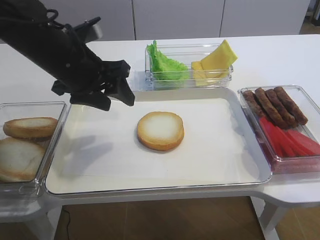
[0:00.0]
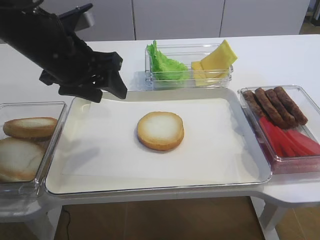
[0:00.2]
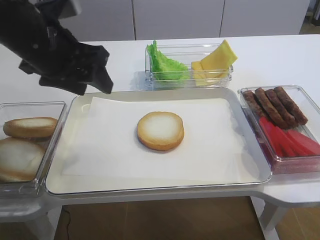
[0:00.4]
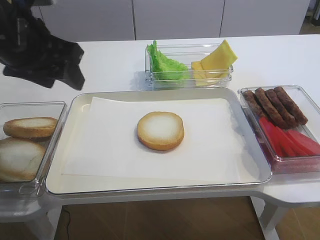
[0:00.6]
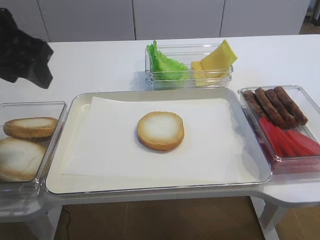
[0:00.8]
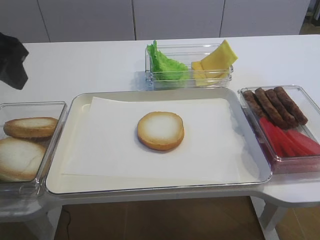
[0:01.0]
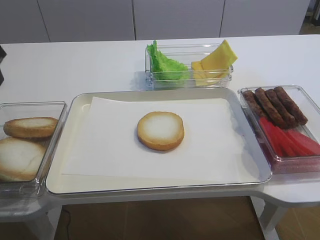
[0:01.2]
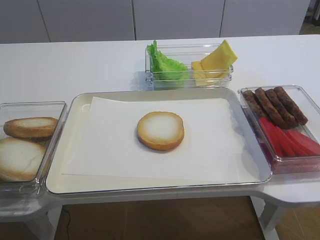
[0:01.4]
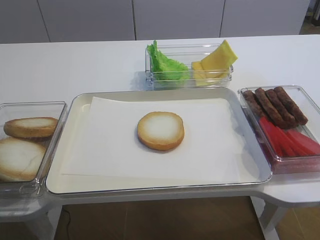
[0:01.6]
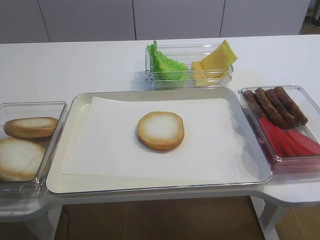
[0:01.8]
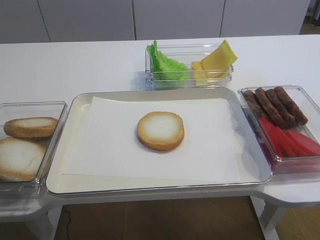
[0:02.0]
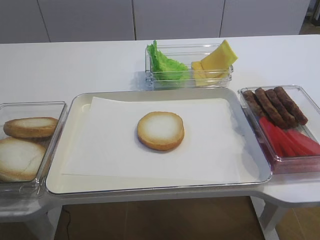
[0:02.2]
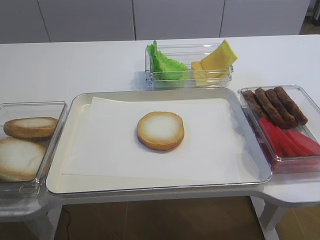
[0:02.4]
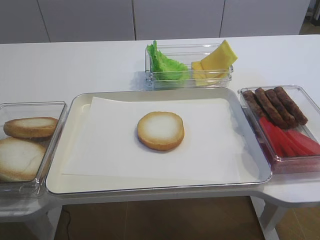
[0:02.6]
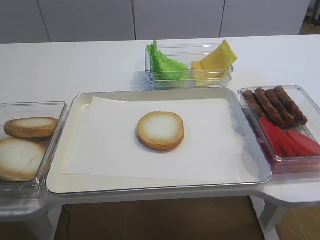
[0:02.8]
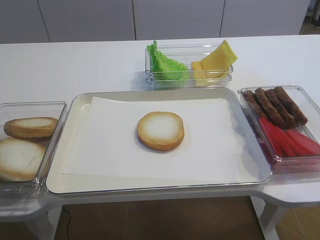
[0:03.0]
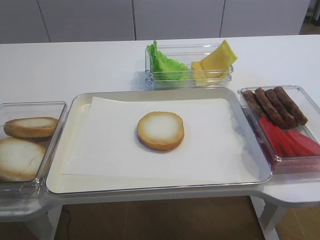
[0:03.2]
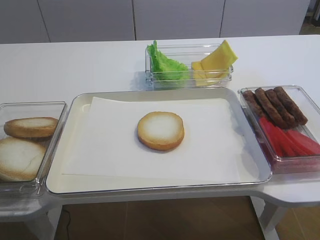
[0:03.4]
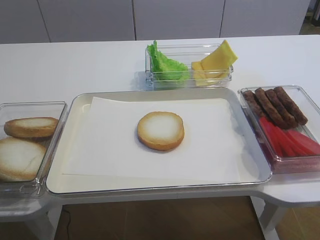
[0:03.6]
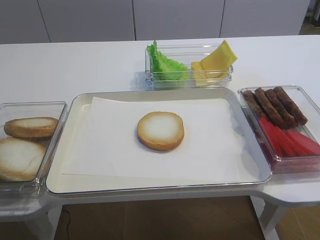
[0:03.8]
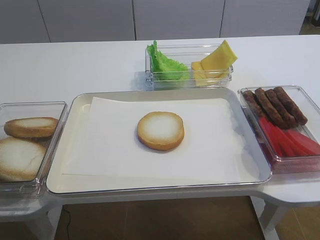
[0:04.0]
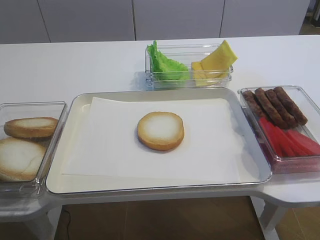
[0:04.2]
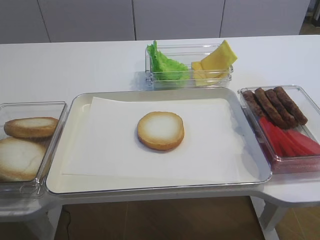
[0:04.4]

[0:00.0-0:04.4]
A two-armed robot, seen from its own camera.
0:00.0 to 0:01.4: The left gripper shifts some 20 cm to the left, upward and backward.

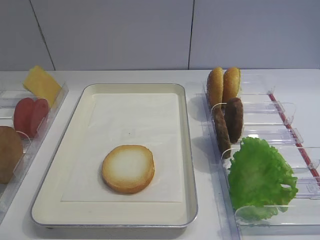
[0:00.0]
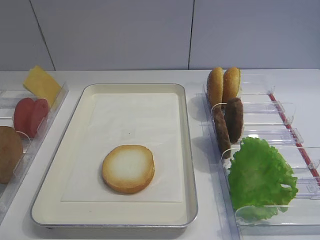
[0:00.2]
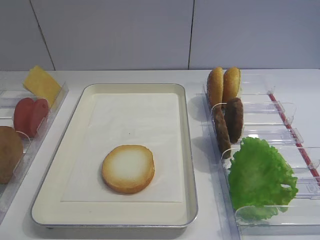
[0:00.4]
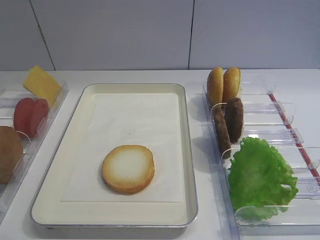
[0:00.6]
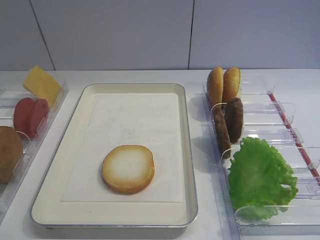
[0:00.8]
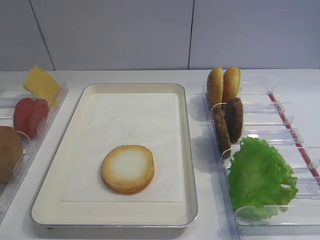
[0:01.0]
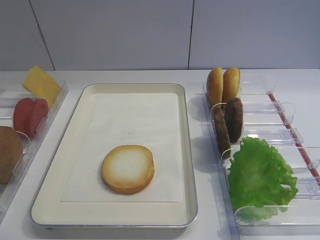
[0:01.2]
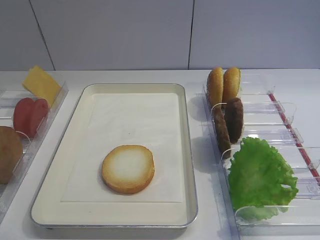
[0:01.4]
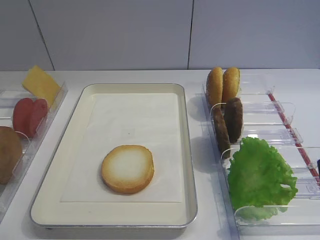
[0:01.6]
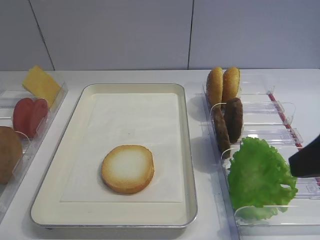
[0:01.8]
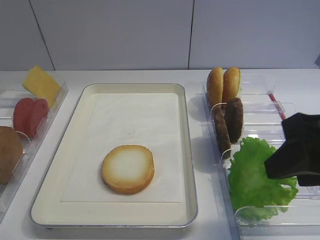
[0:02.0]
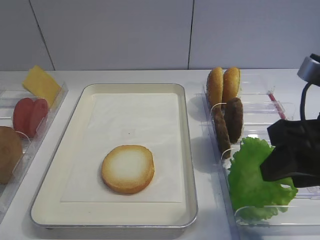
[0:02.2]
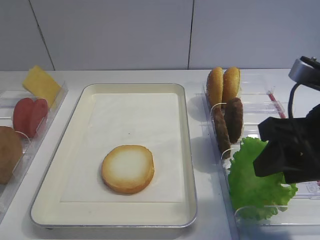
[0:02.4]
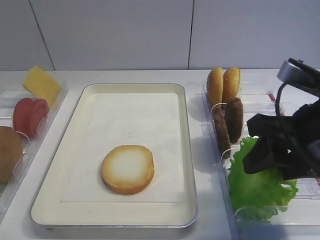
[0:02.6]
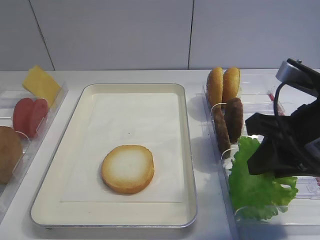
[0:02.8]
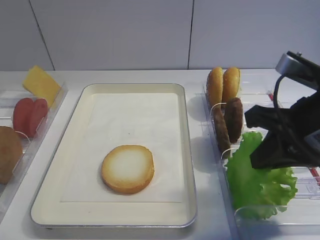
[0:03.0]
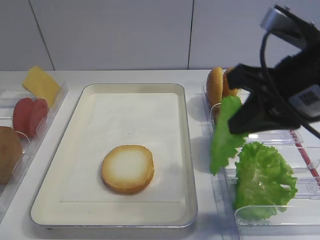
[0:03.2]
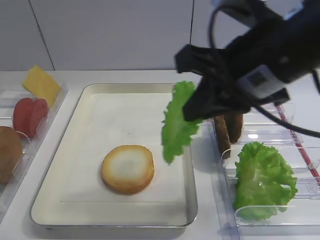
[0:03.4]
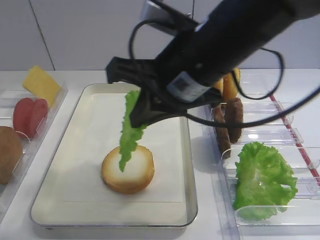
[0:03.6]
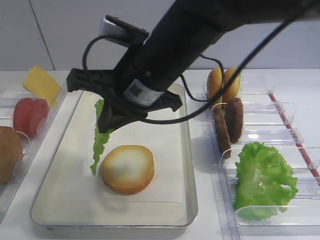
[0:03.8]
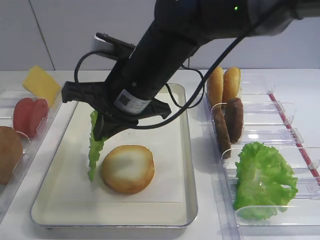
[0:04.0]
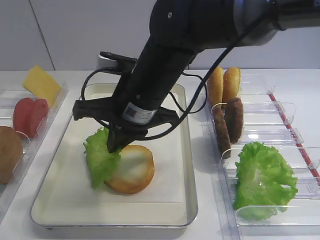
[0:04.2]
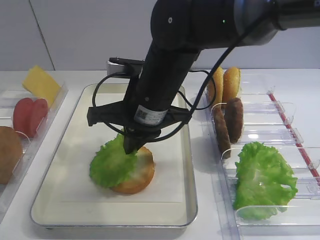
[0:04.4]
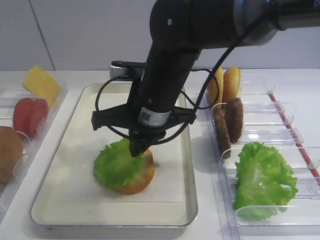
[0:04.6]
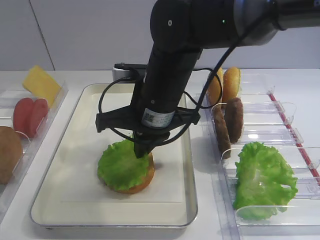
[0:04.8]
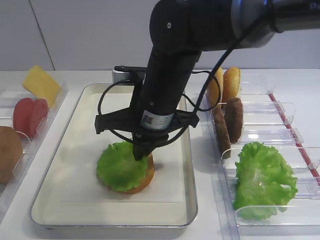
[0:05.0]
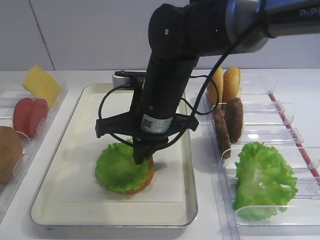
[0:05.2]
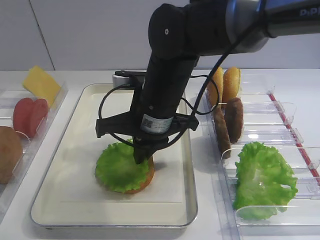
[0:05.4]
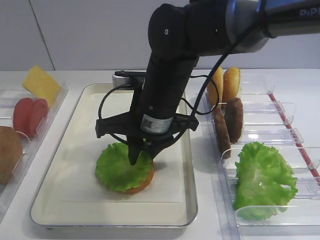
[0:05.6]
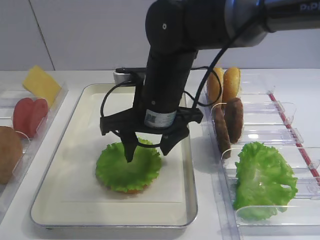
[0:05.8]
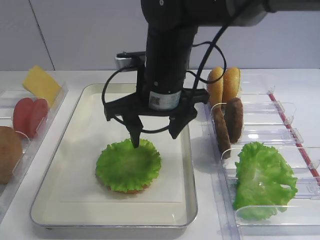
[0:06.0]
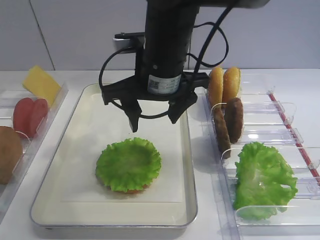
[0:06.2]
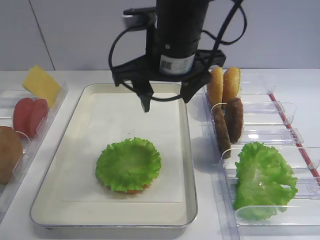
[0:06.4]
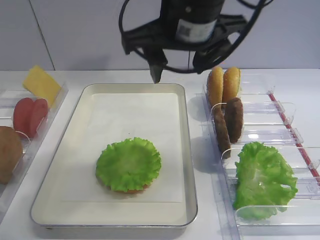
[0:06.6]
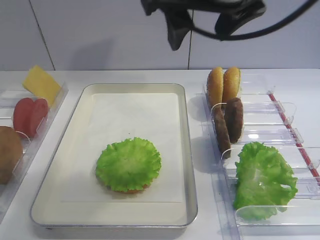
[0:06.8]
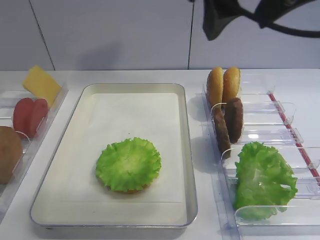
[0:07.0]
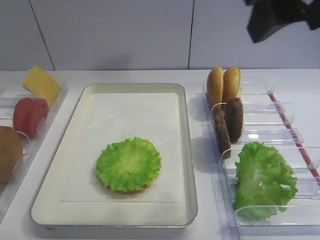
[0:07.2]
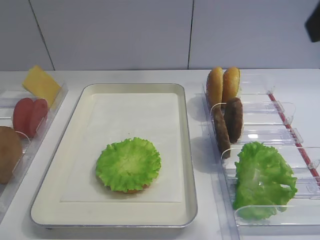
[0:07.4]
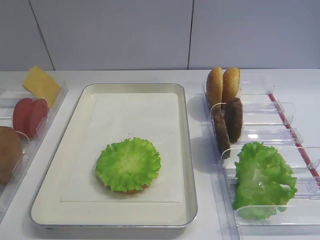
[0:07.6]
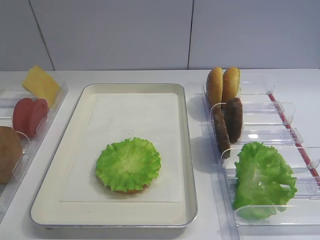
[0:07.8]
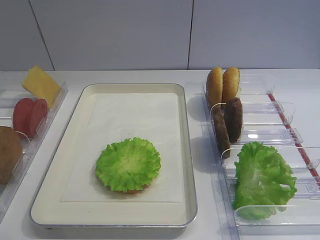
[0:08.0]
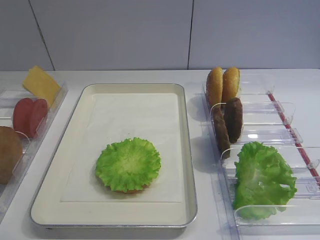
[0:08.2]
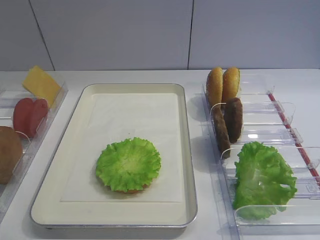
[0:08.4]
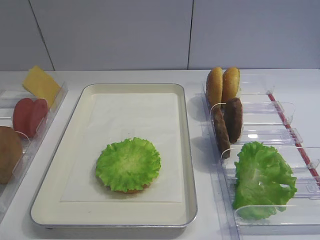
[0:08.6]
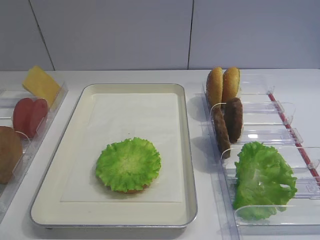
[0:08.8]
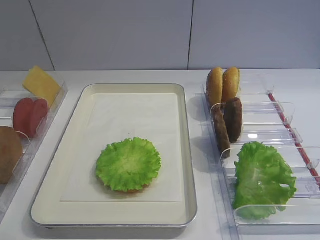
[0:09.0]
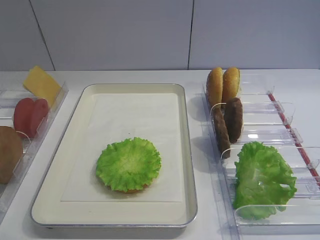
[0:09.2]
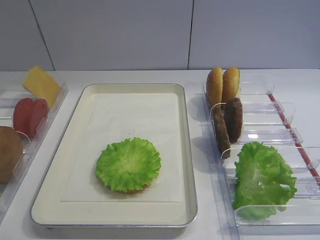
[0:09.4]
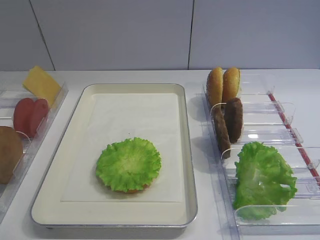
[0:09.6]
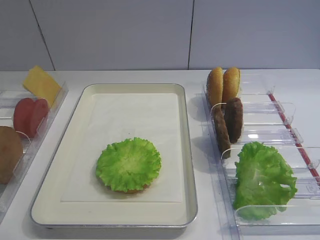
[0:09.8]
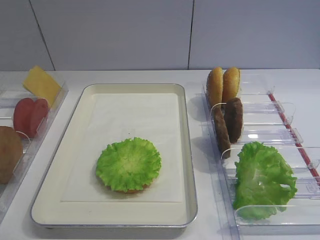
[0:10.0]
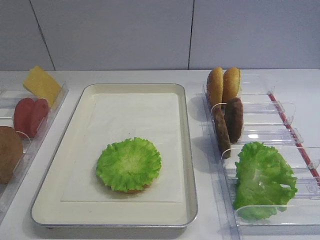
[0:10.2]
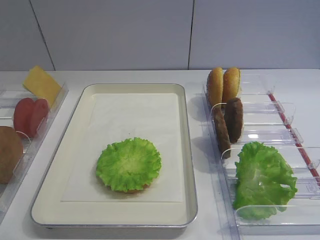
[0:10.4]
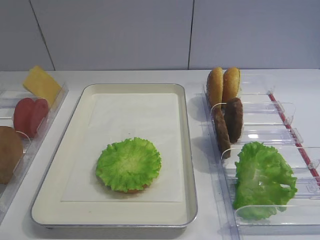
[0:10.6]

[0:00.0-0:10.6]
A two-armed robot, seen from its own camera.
Step, 0:00.0 to 0:03.0: Pick up the lettuce leaf with the right gripper.
Step, 0:03.2 to 0:06.0: Place the lettuce leaf on the bread slice with the right gripper.
0:01.6 to 0:03.0: The right gripper goes approximately 10 cm forward, and closes.
0:03.0 to 0:04.6: The right gripper goes approximately 20 cm to the left and forward.
0:04.6 to 0:06.0: The right gripper opens its fingers.
0:06.0 to 0:07.6: The right gripper travels to the right, backward and upward by roughly 35 cm.

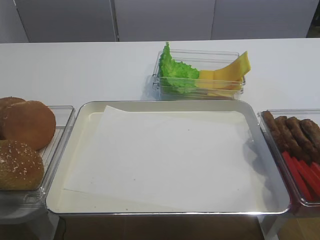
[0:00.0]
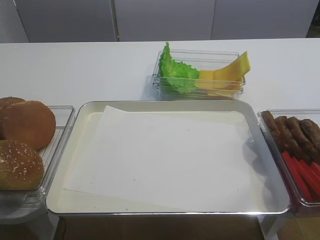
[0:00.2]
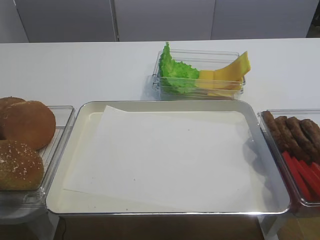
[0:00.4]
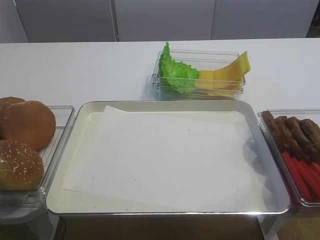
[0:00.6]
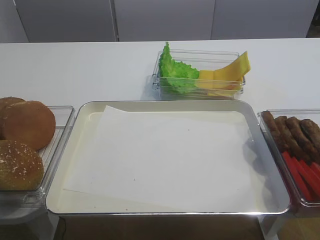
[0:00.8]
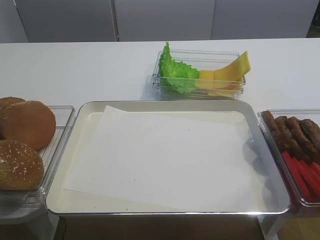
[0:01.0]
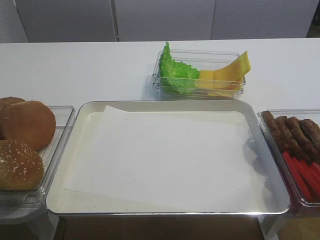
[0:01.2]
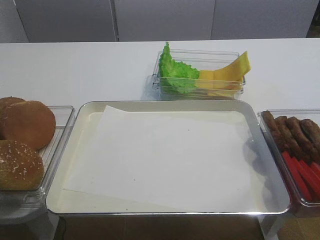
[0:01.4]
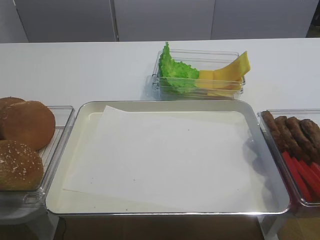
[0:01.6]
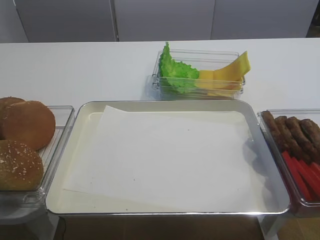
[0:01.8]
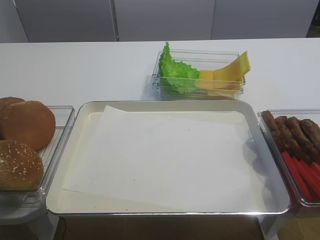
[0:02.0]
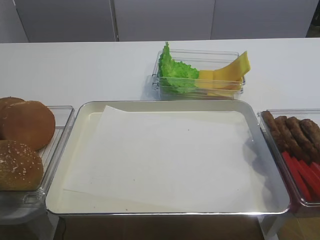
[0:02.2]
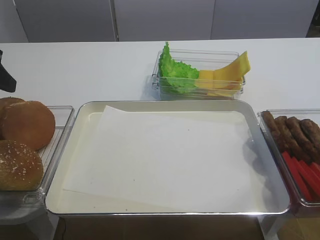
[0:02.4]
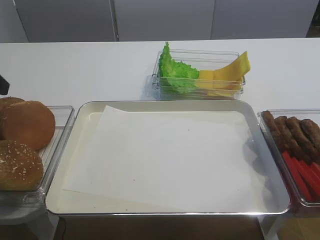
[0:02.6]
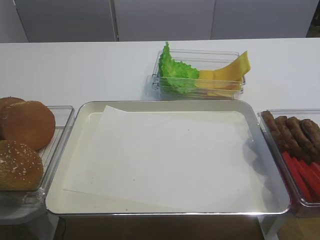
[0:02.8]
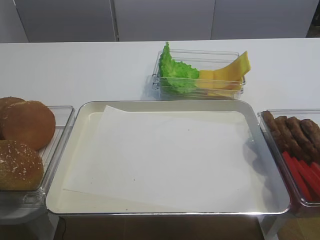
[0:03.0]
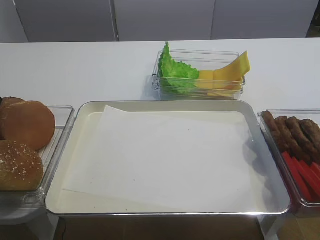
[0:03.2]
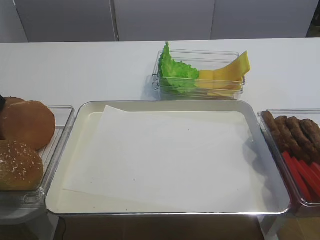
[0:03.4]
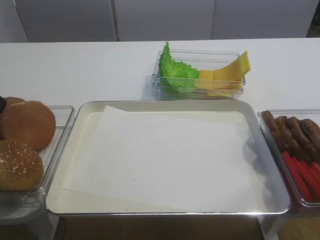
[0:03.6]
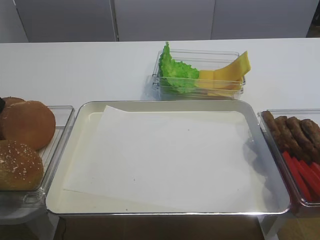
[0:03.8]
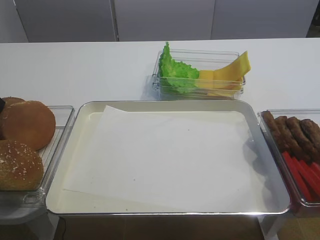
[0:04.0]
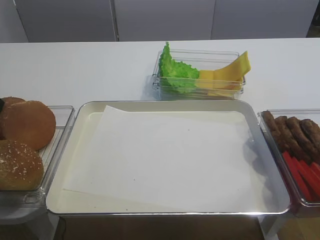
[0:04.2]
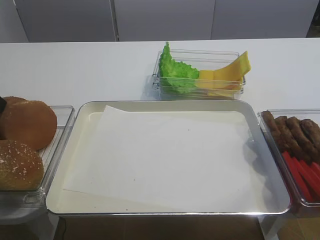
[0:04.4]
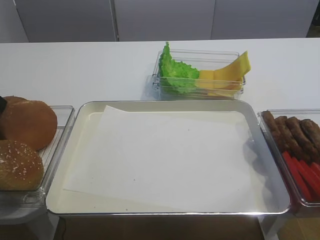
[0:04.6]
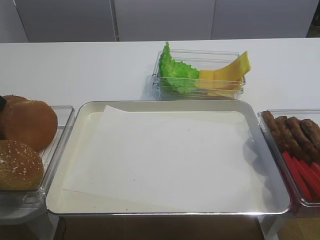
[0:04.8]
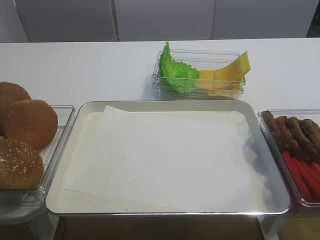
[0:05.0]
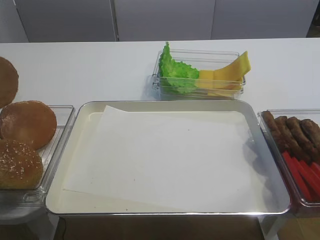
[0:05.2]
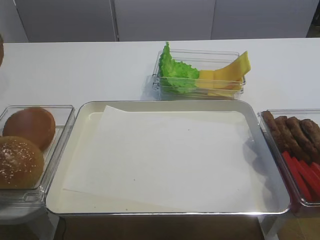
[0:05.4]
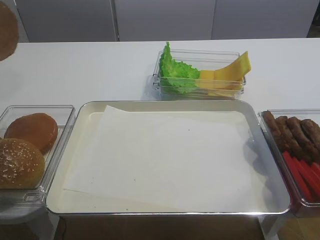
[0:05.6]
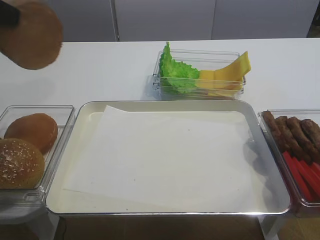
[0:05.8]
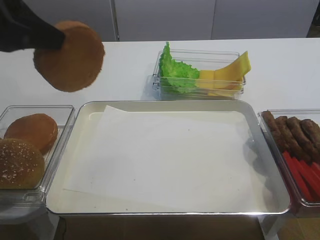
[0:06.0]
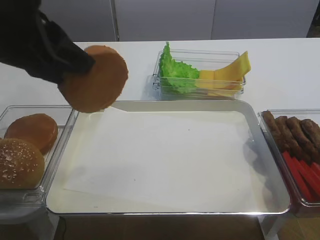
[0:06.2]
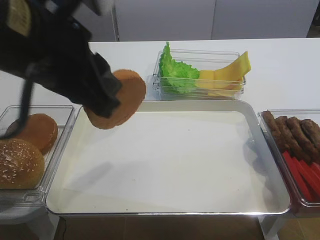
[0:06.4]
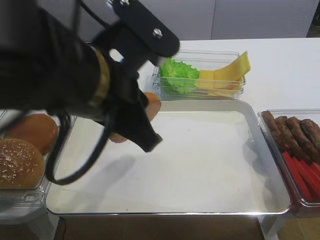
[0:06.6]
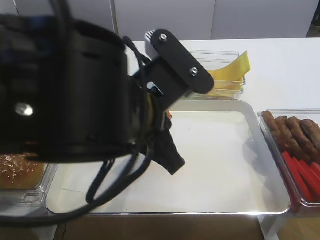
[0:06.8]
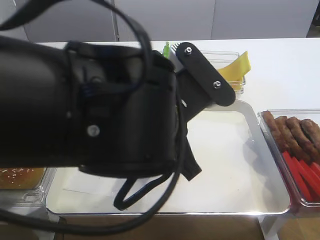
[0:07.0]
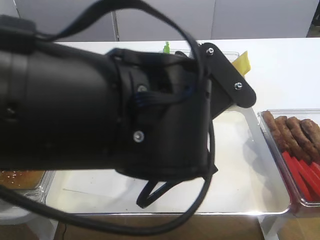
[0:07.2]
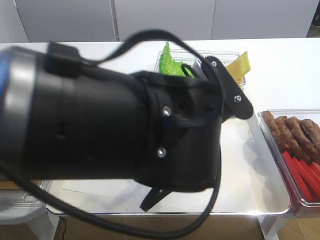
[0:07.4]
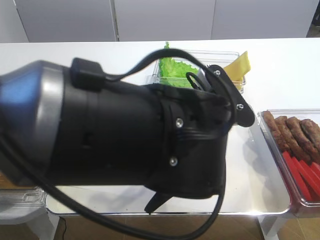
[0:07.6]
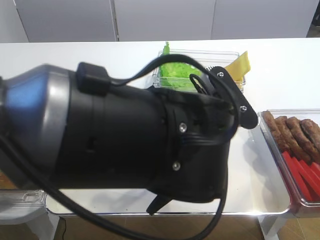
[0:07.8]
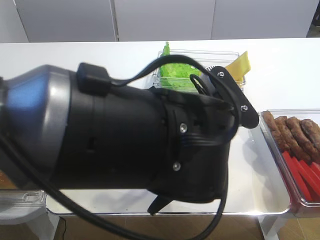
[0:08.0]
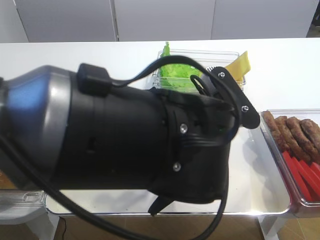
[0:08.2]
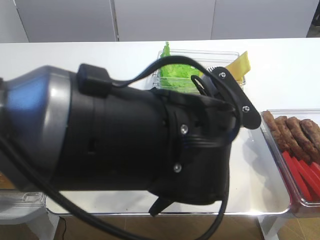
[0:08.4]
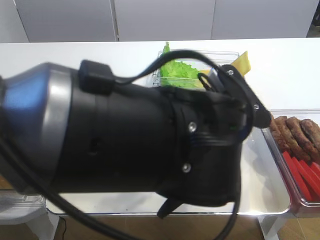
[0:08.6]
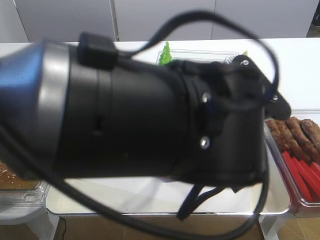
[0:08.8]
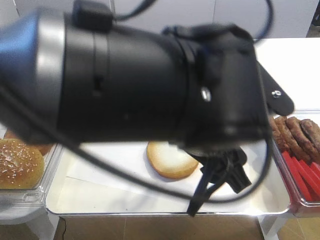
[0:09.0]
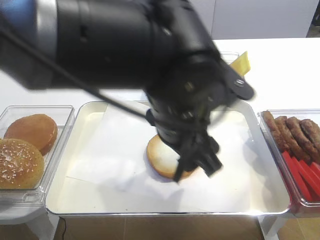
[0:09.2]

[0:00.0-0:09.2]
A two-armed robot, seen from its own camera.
0:04.6 to 0:06.2: The left gripper heads to the right, upward and backward, covering approximately 25 cm.
0:06.2 to 0:07.6: The left gripper heads to the right and downward, covering approximately 20 cm.
0:07.6 to 0:09.2: The left gripper moves forward, approximately 5 cm, and opens up.
